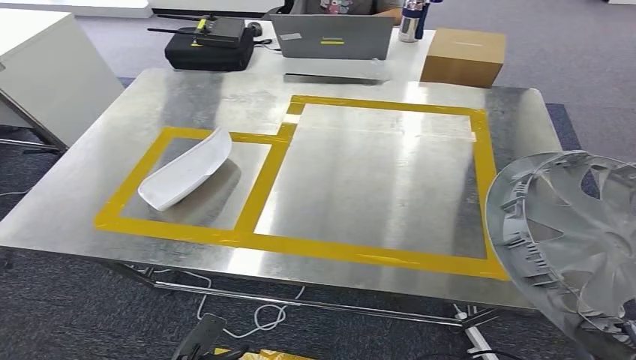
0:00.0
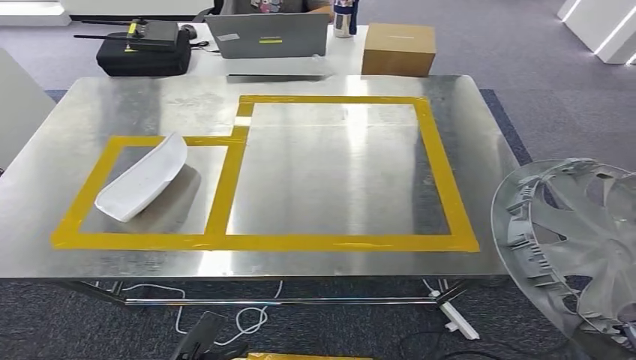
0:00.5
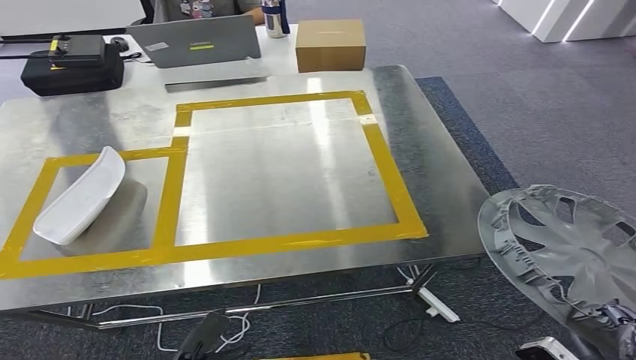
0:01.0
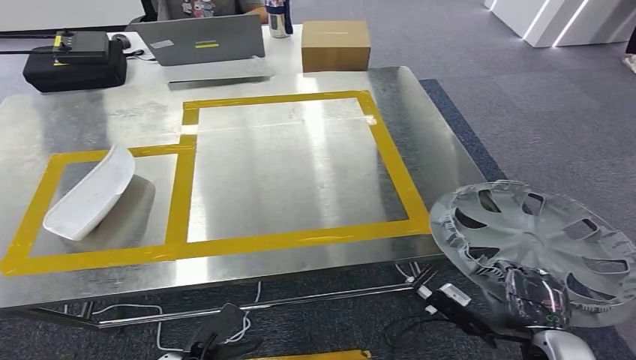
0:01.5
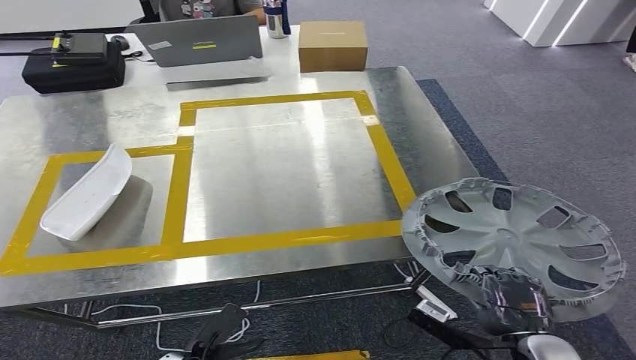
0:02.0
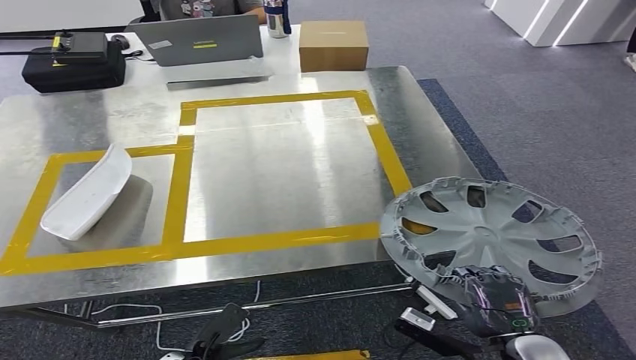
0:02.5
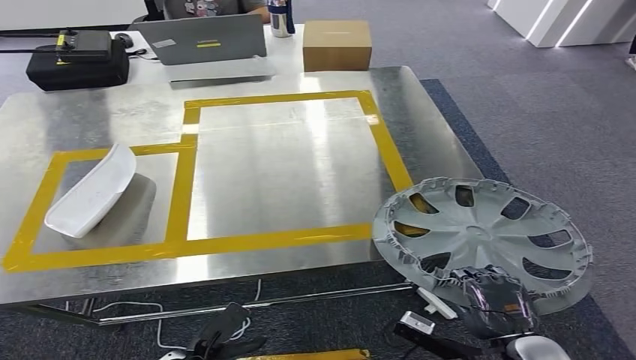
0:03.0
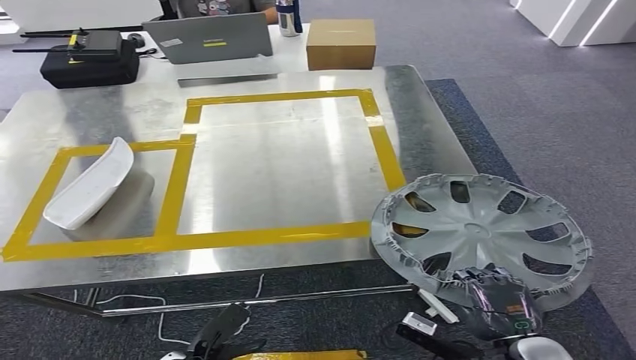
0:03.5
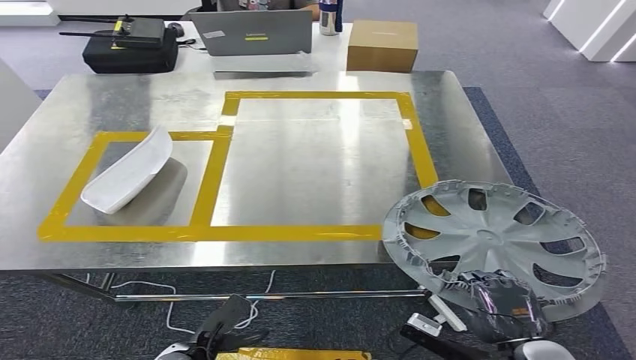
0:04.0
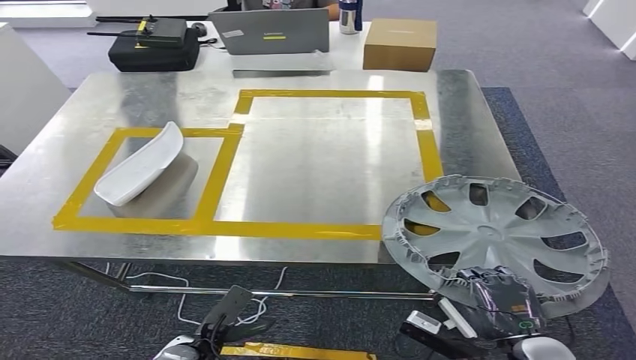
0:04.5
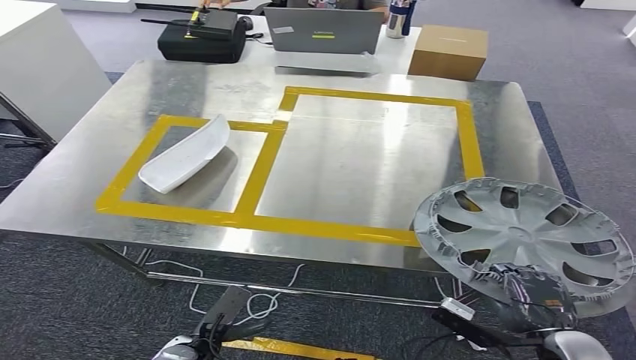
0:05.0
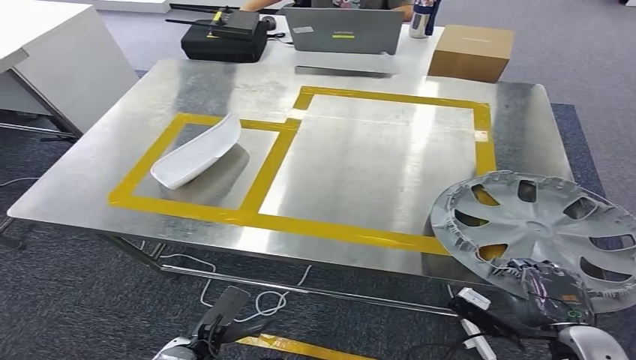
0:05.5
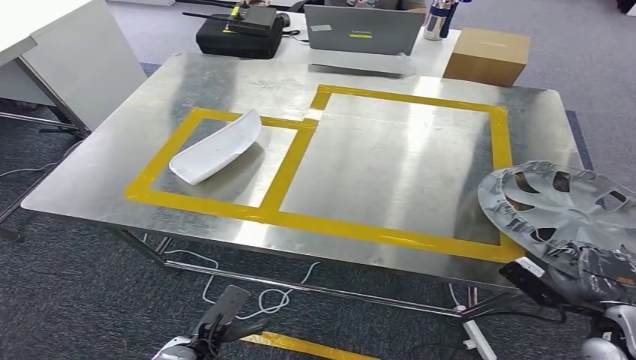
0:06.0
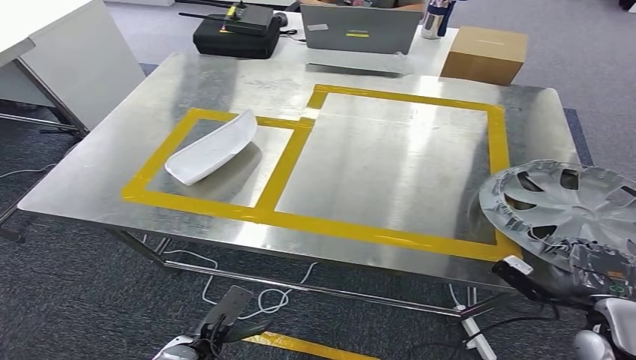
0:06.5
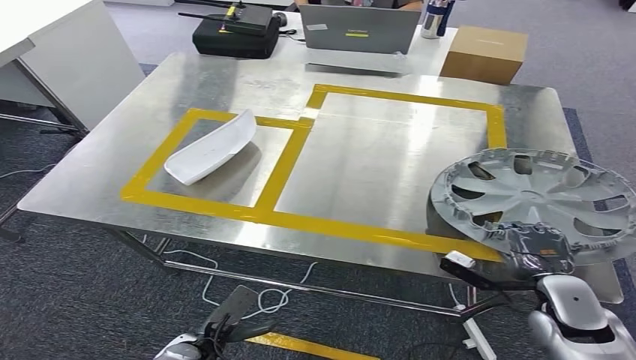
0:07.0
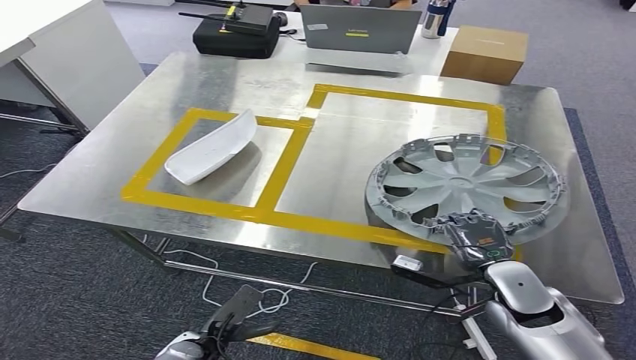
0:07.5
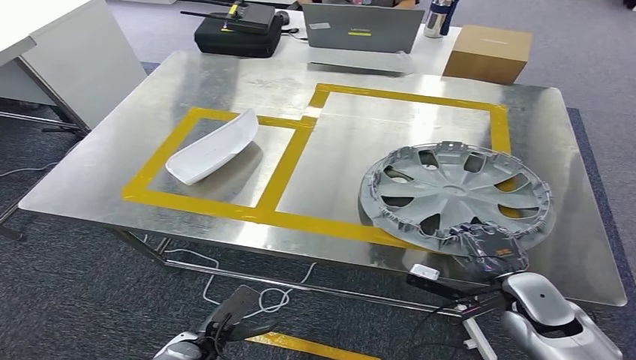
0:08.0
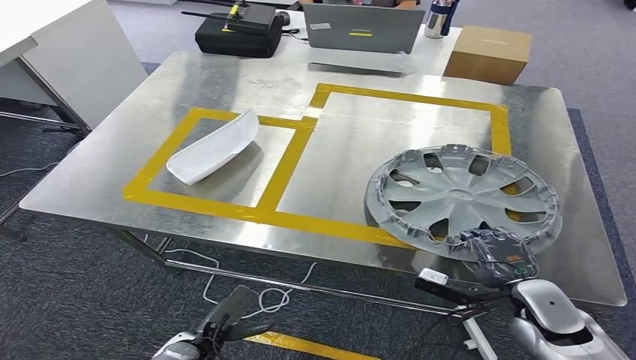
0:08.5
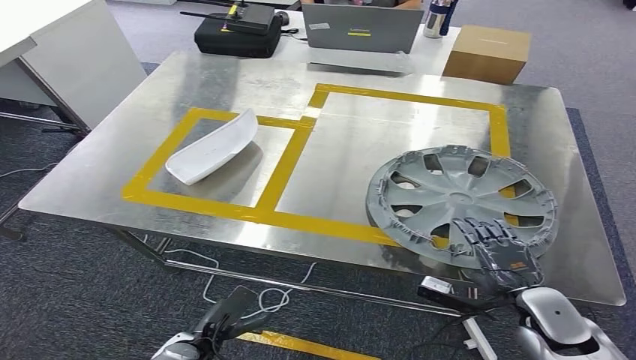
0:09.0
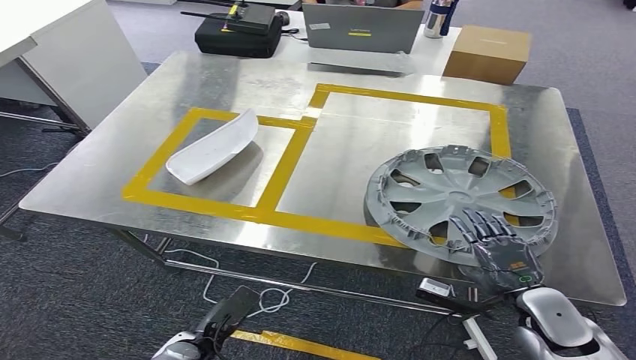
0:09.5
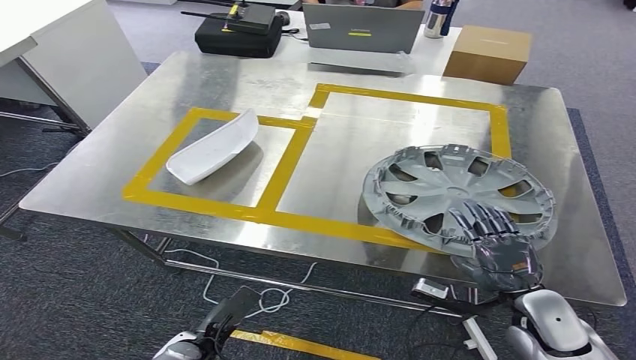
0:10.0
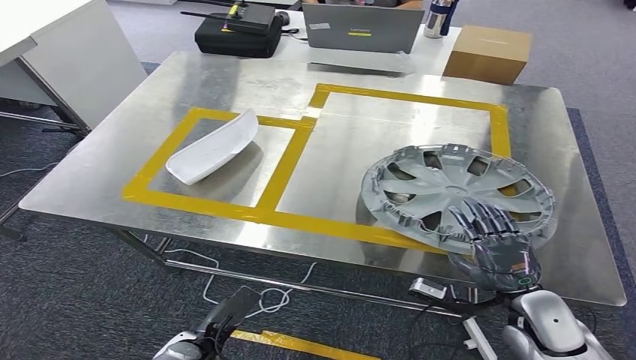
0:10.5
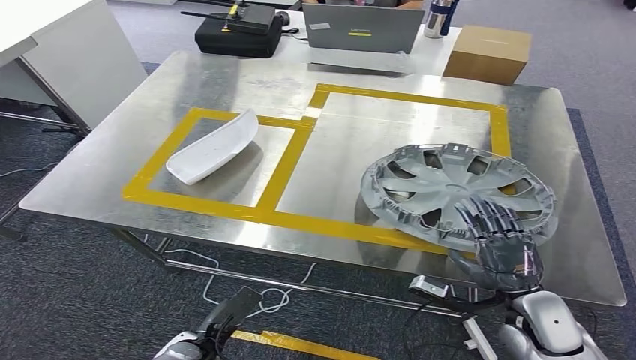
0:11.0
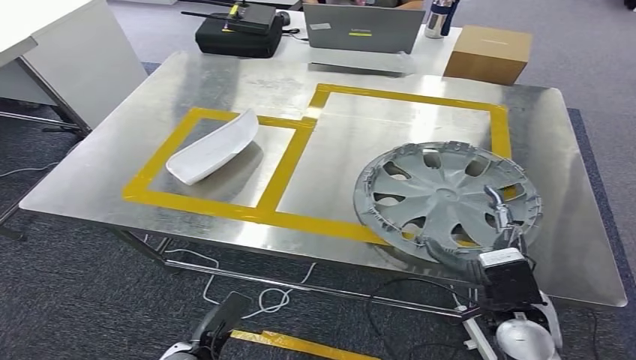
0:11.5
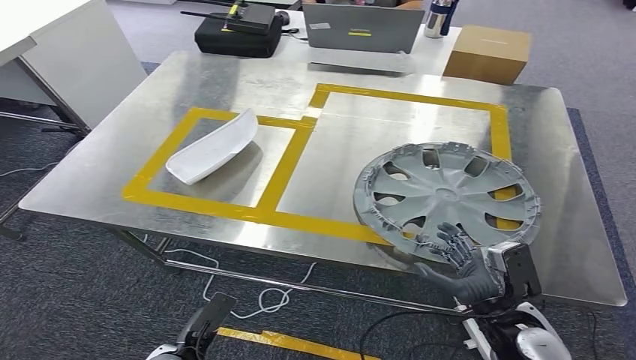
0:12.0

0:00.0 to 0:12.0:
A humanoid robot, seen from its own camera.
0:06.0 to 0:08.0: The right hand goes about 10 cm to the left and forward.
0:08.0 to 0:10.0: The hands make only small movements.

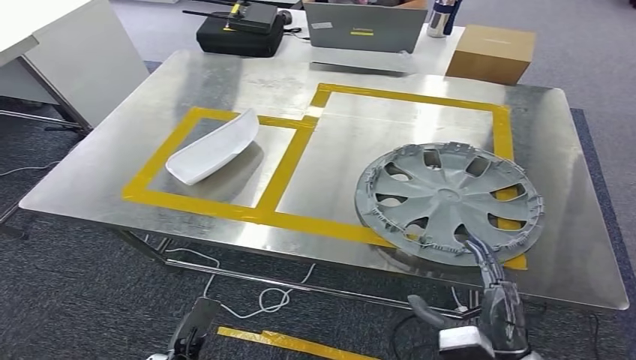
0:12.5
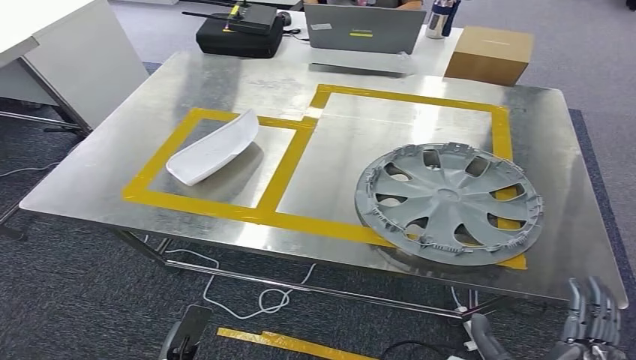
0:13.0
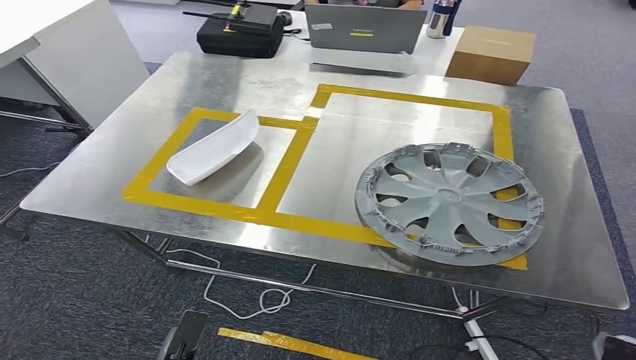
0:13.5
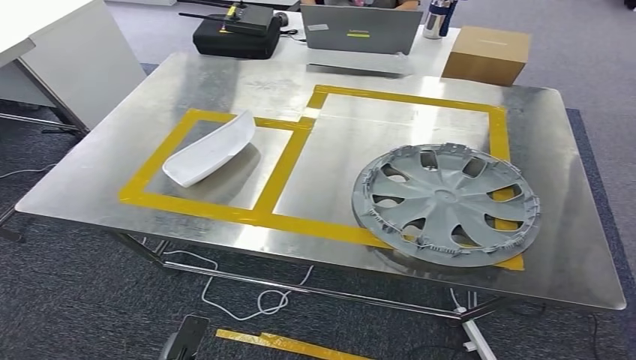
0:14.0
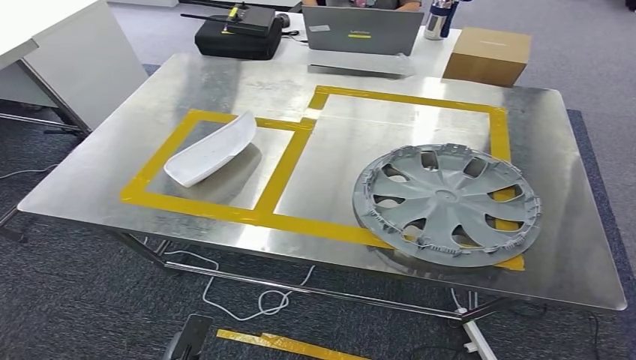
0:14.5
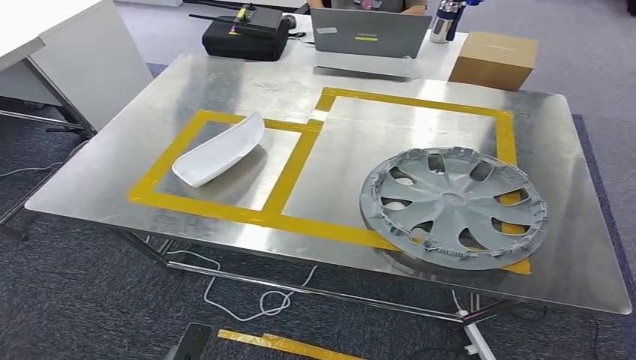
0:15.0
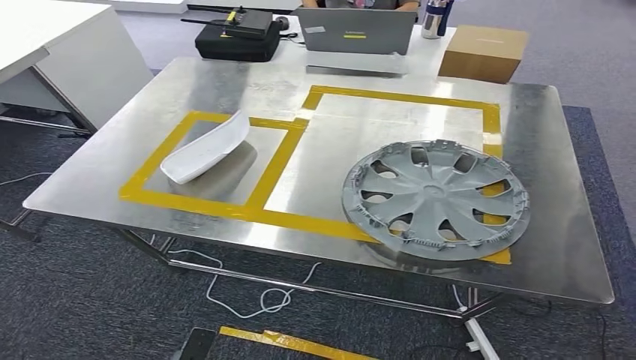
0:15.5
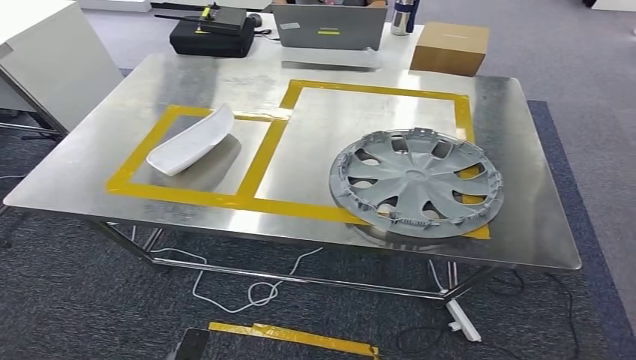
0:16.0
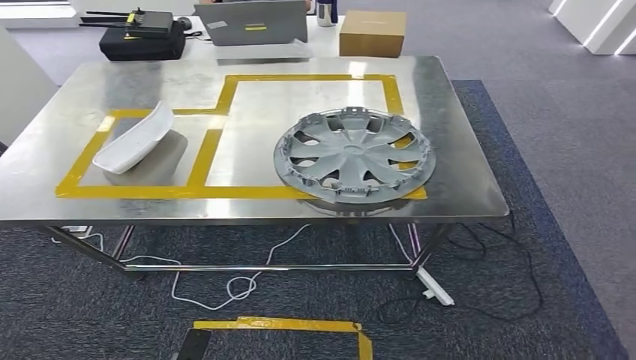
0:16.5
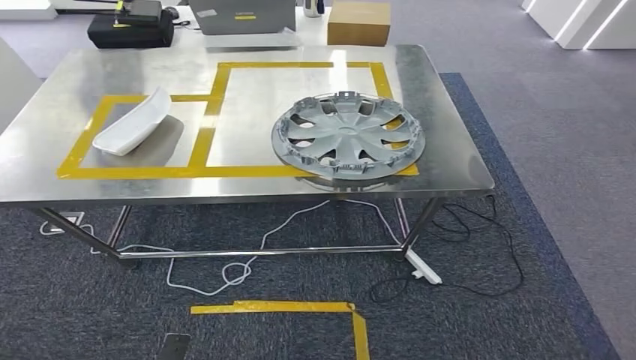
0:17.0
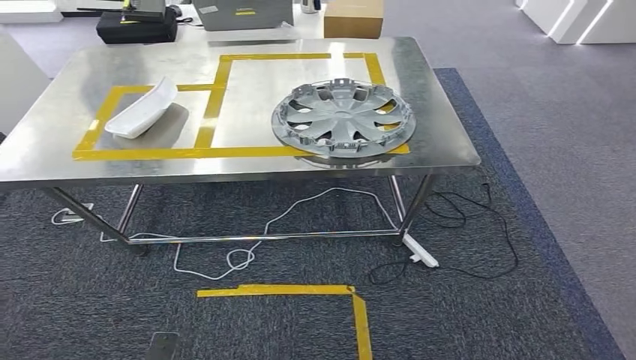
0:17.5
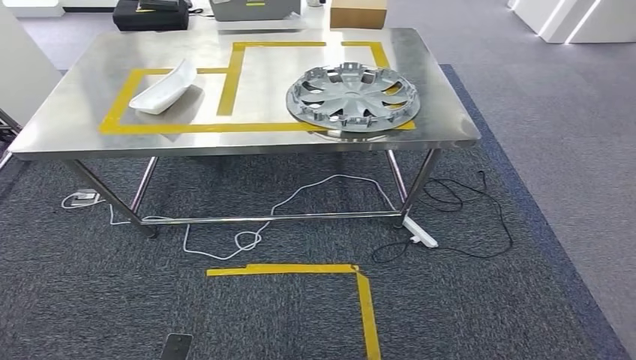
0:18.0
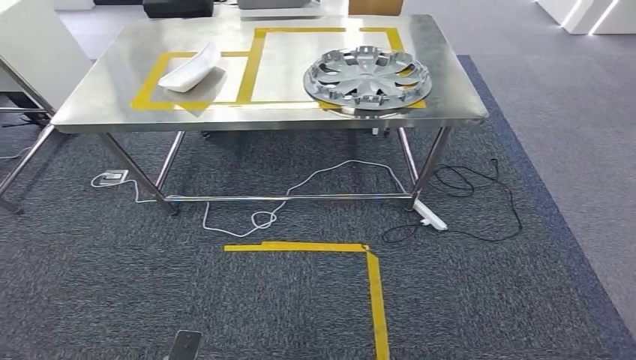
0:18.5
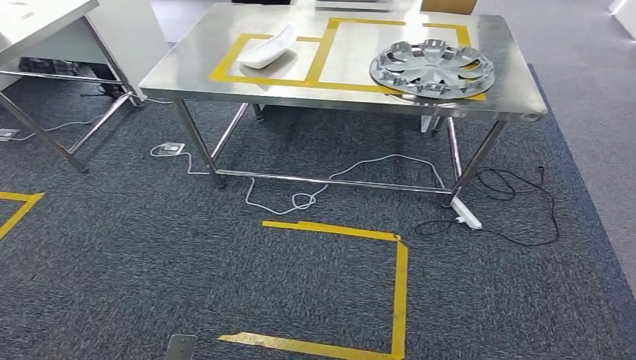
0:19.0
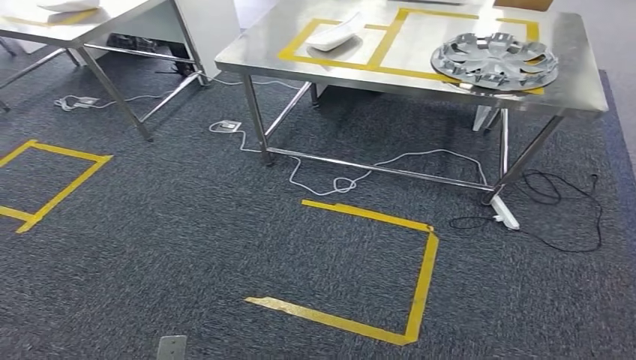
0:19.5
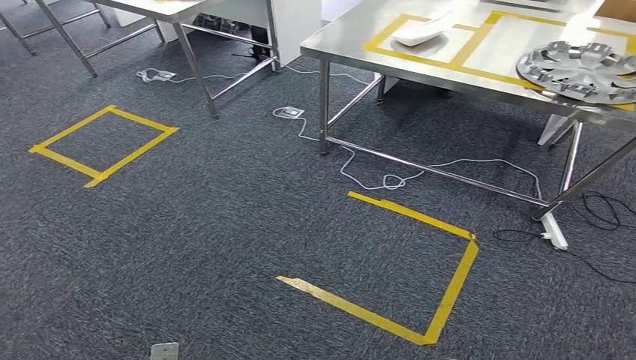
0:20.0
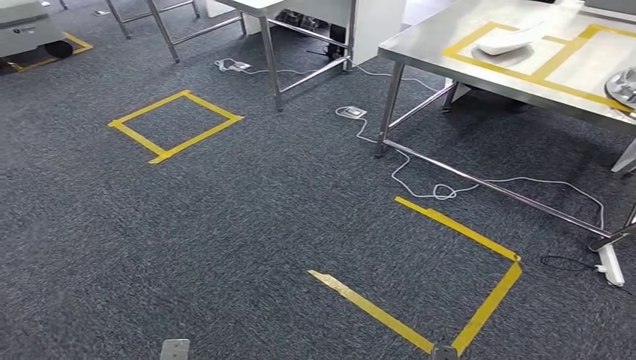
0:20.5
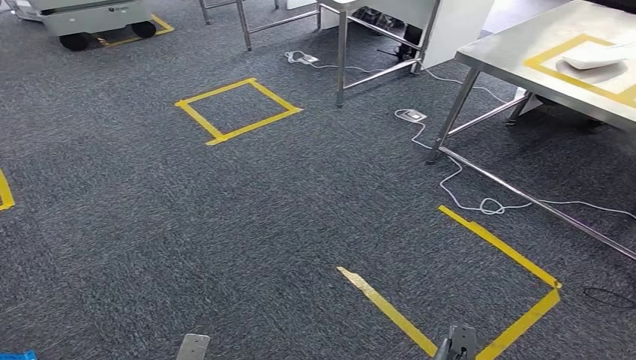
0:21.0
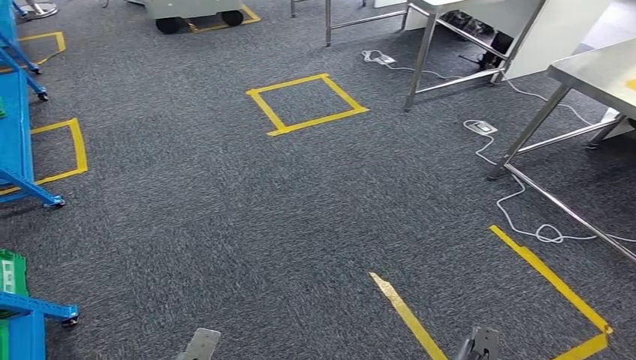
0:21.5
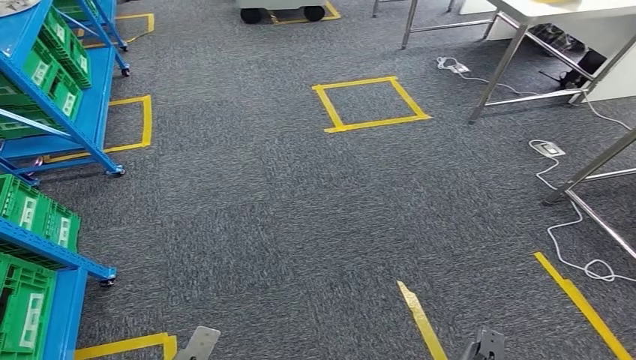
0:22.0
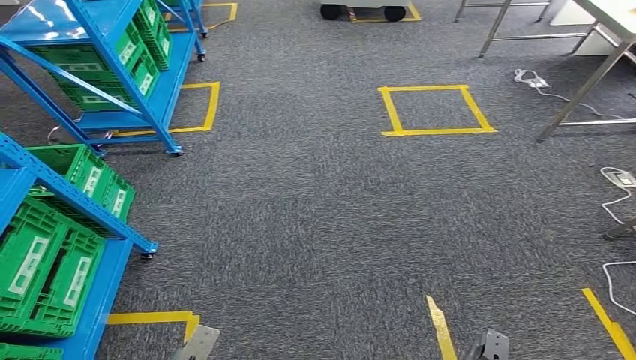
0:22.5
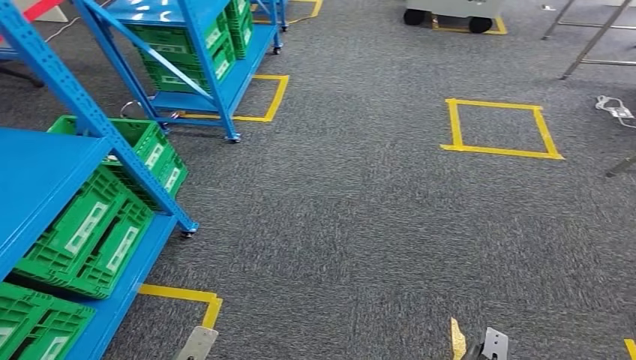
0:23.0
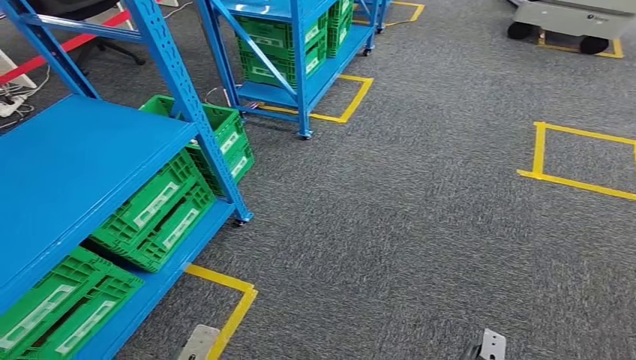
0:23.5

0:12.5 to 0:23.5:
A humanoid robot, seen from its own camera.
Step, 0:12.5 to 0:14.5: Insert the small parts into the corresponding holes on the workbench.
0:12.5 to 0:14.5: The right hand shifts some 25 cm downward and backward.
